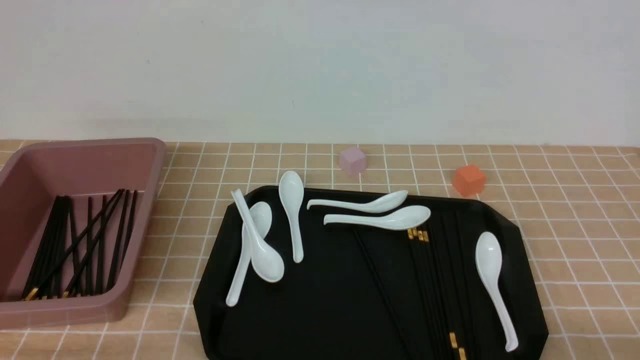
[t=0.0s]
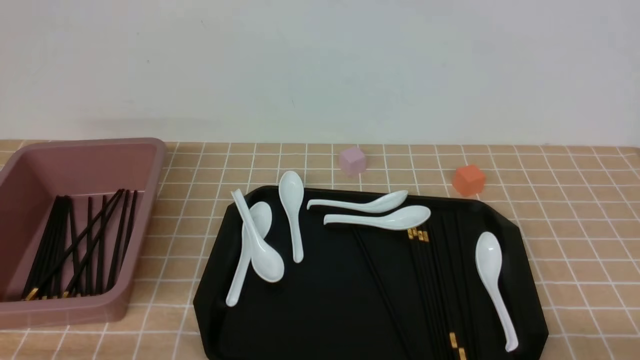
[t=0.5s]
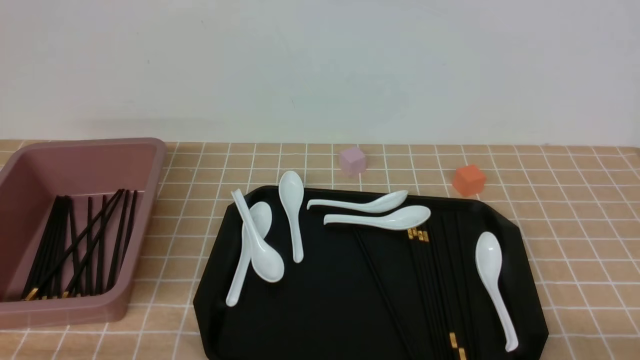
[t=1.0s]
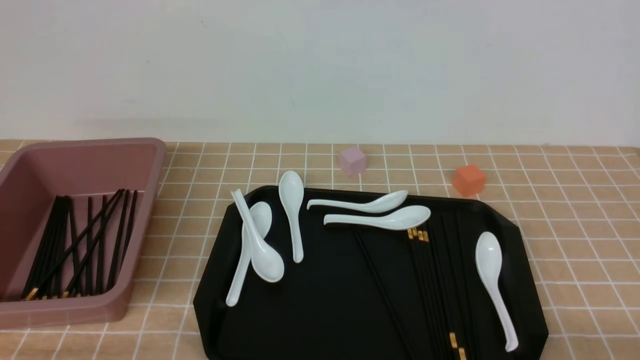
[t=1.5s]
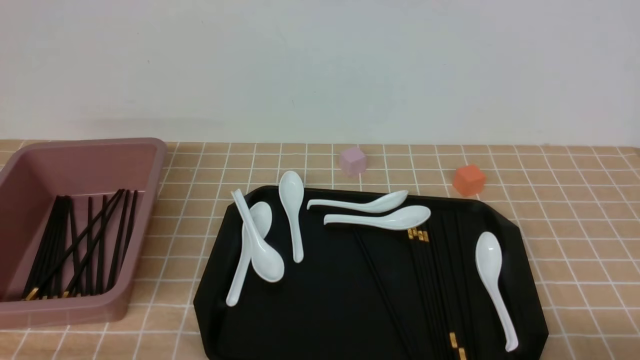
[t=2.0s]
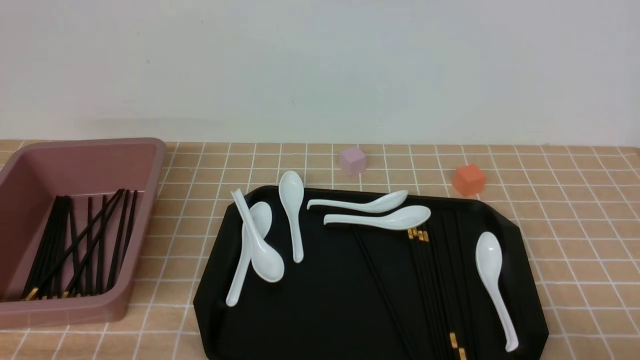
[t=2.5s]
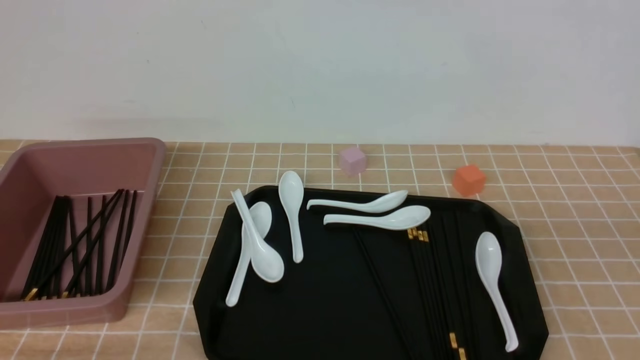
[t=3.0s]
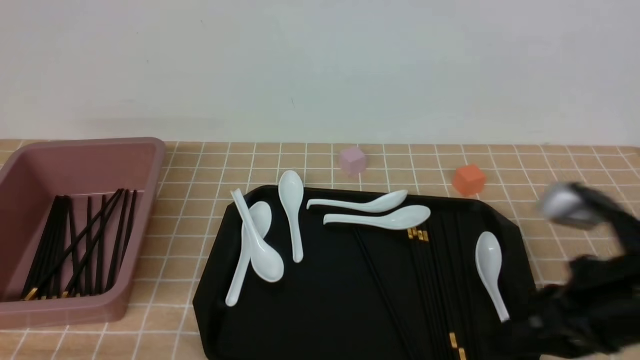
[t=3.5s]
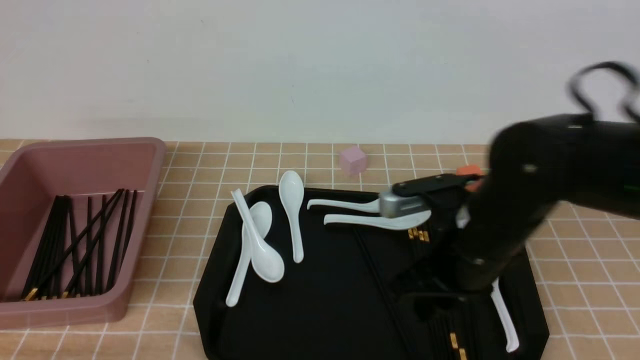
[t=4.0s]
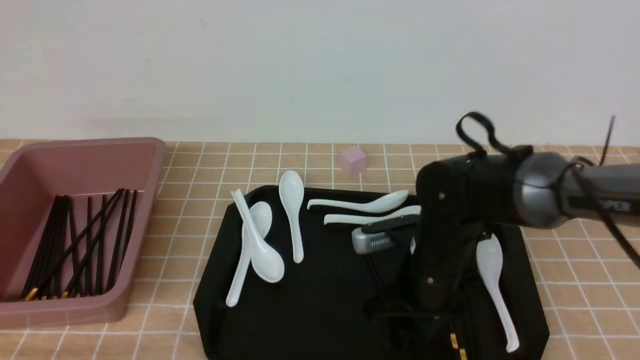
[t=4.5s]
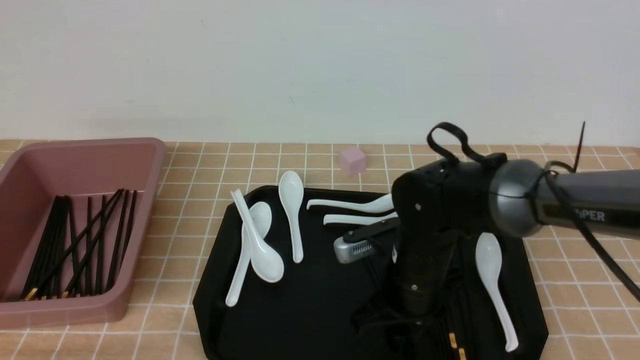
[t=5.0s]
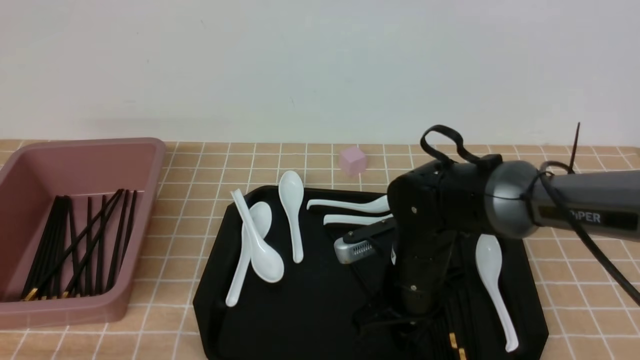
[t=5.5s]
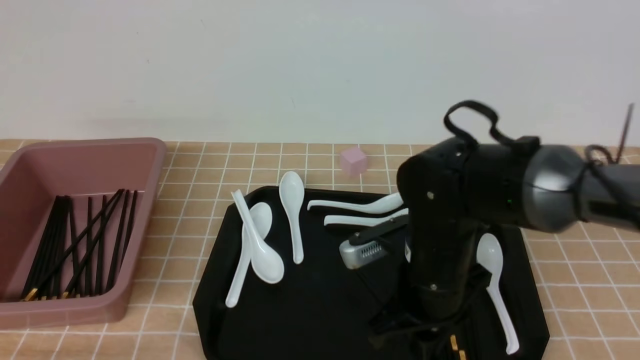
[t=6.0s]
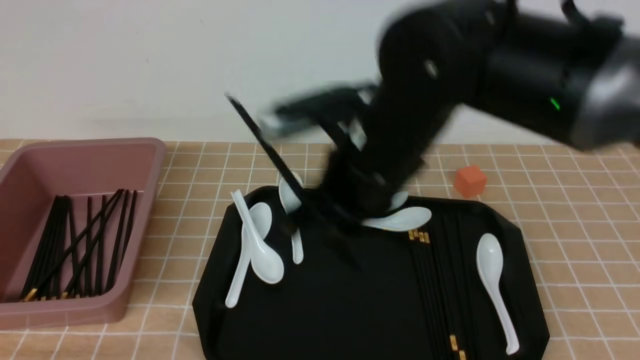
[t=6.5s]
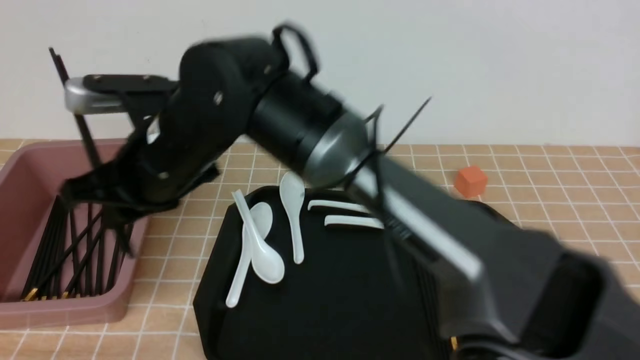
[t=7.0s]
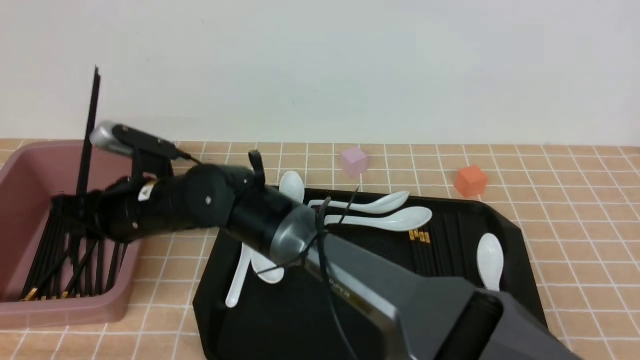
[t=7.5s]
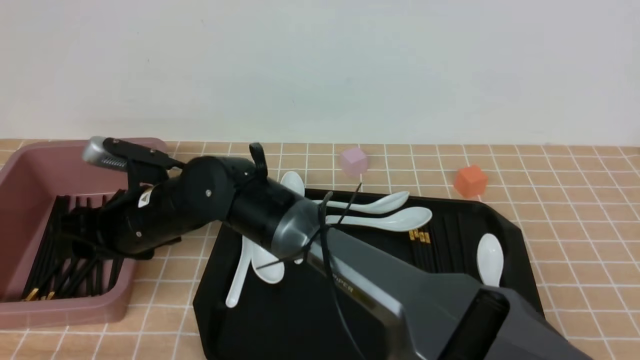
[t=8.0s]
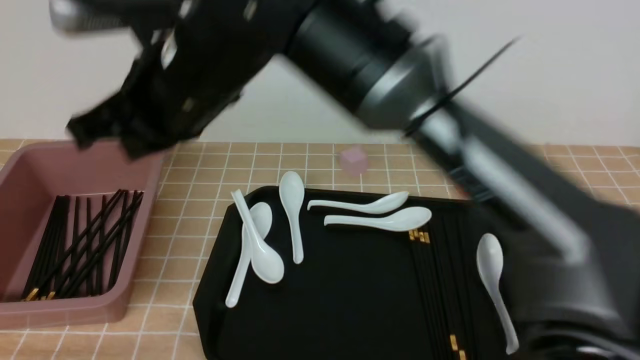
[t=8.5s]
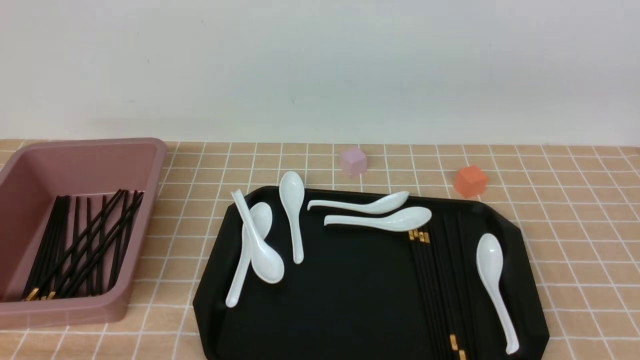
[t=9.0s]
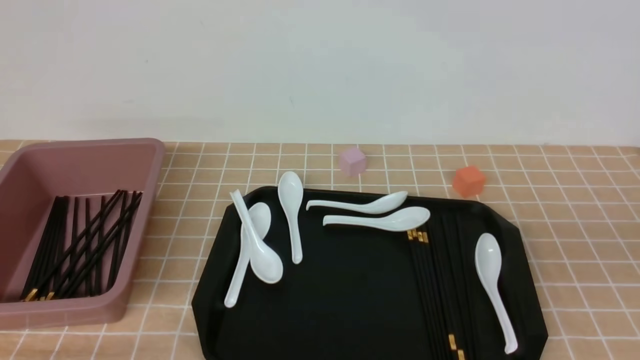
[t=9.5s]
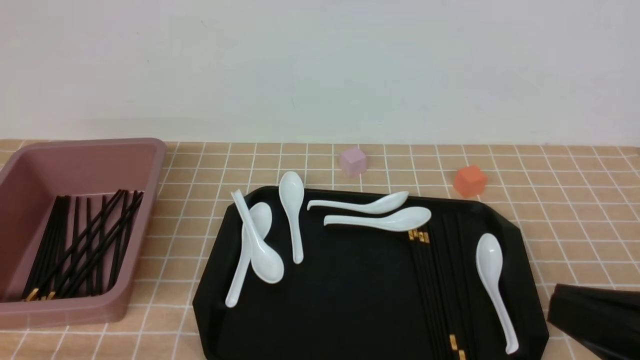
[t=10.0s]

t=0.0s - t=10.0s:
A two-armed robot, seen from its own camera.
Step, t=0.0s - t=6.0s: use the right arm to grab a pair of chopsticks.
Step, t=6.5s - t=8.0s: use the right arm to put the chopsticks into the lunch box.
t=2.0s - t=4.0s: The right gripper goes approximately 25 cm forward and to the left, and closes, then opens again.
t=4.0s - t=6.0s: The right gripper shifts about 5 cm downward, and opens, then closes once more.
t=6.0s - t=8.0s: The right gripper goes roughly 25 cm to the left, and opens.
t=8.0s - t=10.0s: The right gripper heads to the right and backward, covering roughly 50 cm, and closes its fingers.

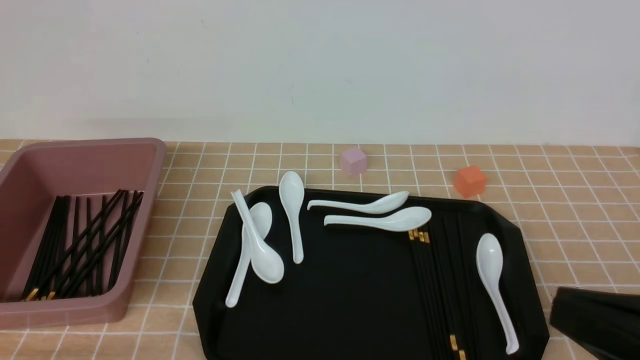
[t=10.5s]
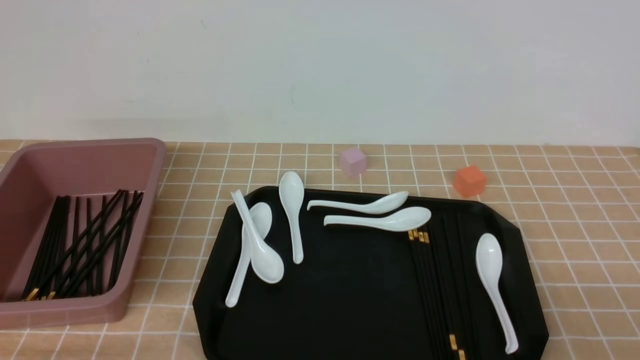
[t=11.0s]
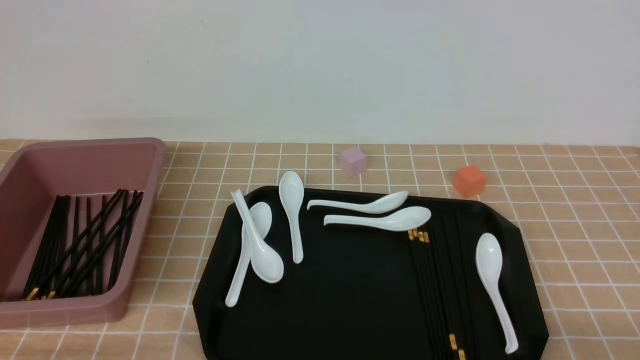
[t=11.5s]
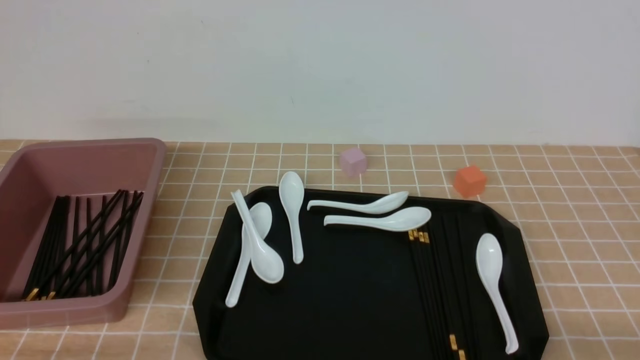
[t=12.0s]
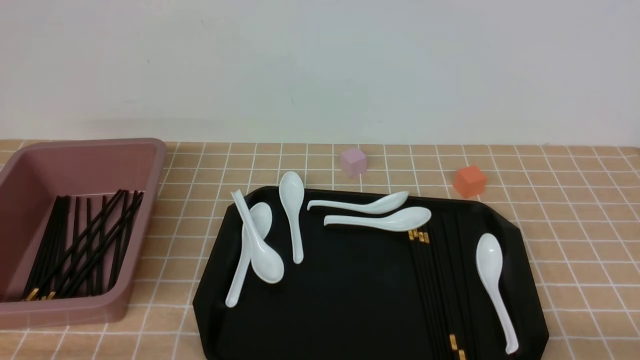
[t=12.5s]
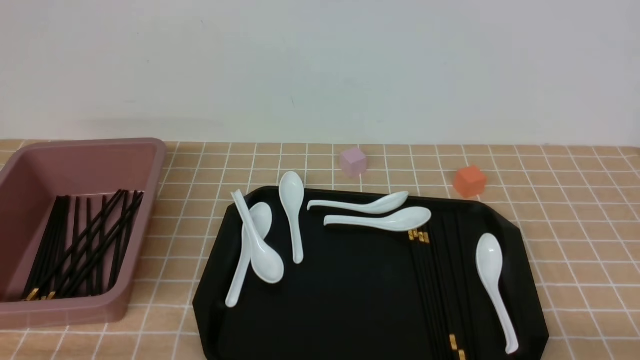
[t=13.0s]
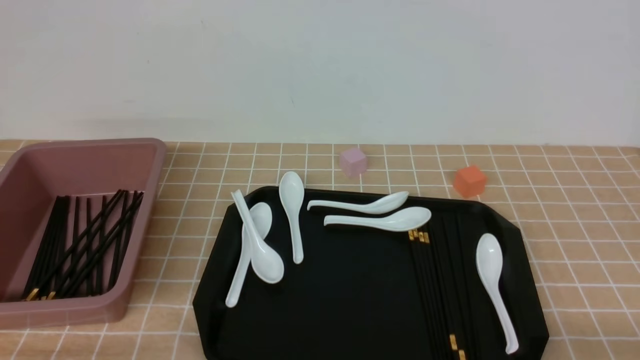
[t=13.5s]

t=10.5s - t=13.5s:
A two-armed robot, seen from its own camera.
t=10.5s - t=12.0s: The right gripper is displaced downward and to the right by approximately 15 cm.
t=12.0s - t=13.5s: The two grippers keep their place.

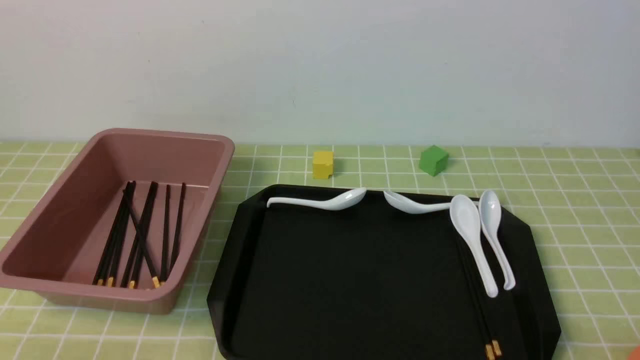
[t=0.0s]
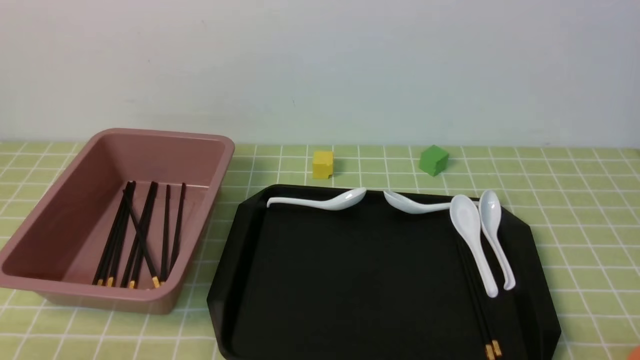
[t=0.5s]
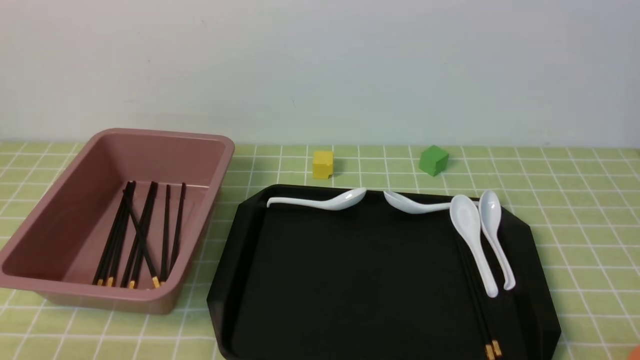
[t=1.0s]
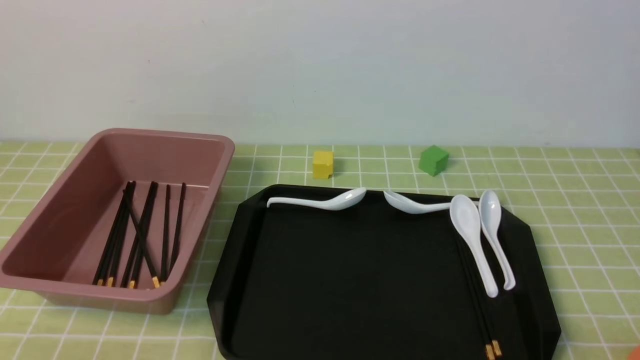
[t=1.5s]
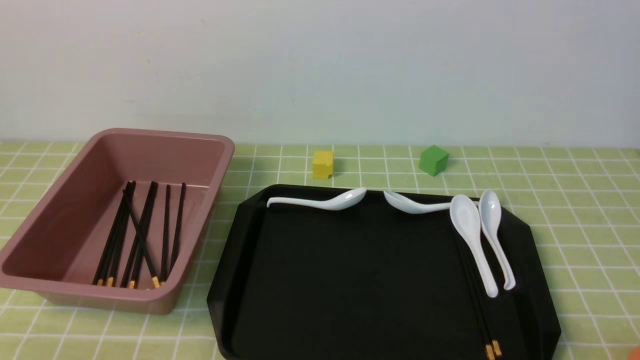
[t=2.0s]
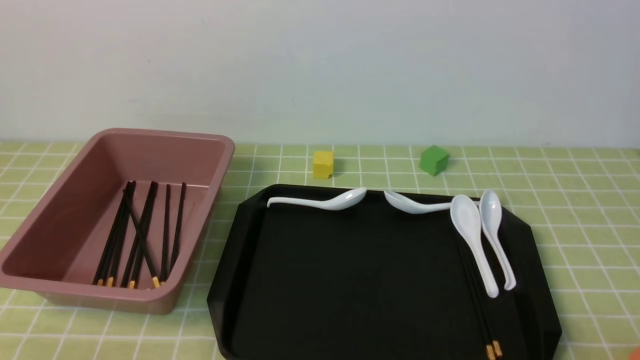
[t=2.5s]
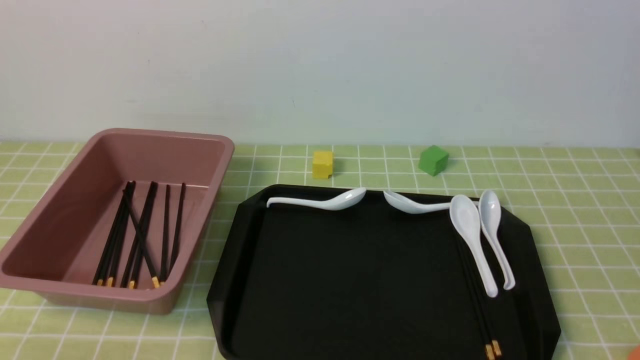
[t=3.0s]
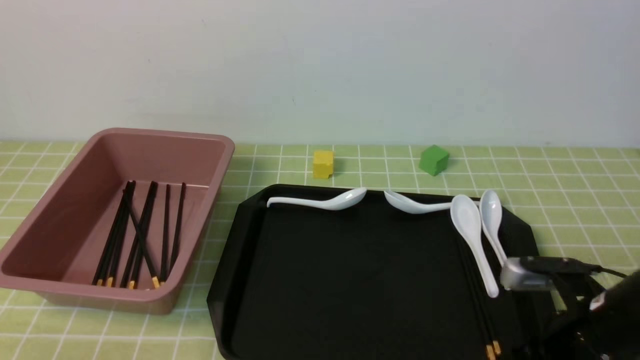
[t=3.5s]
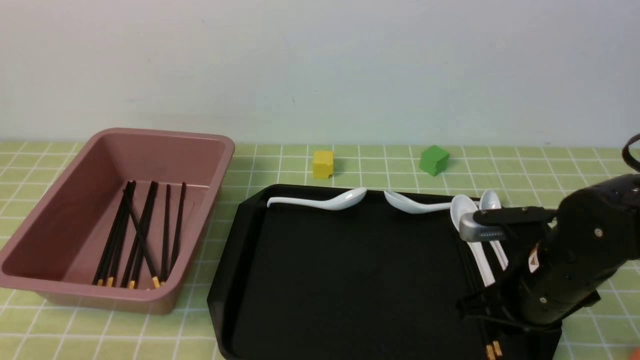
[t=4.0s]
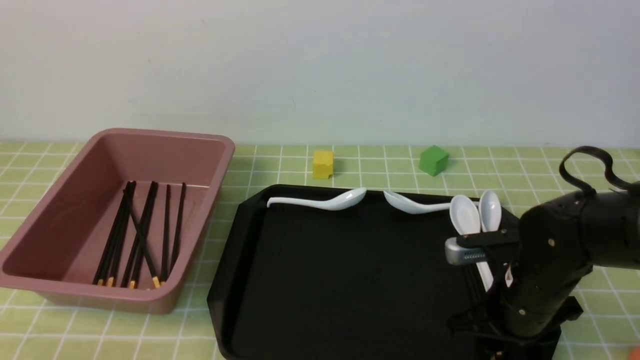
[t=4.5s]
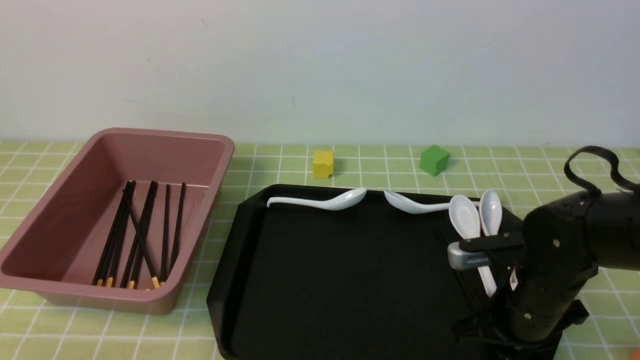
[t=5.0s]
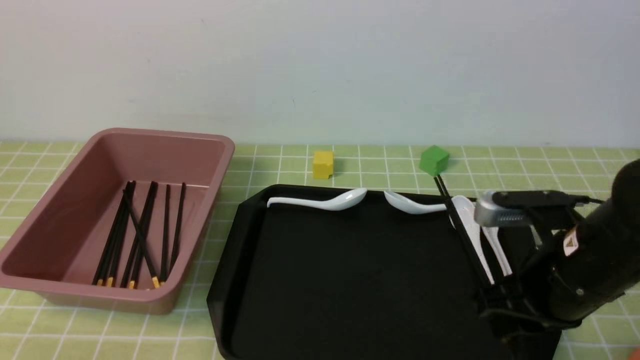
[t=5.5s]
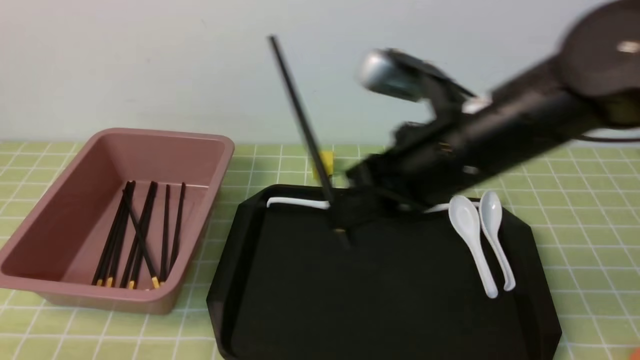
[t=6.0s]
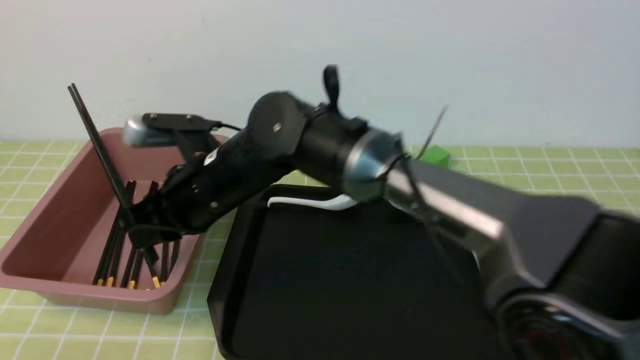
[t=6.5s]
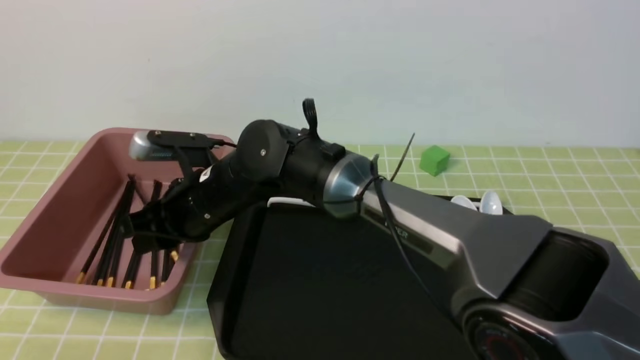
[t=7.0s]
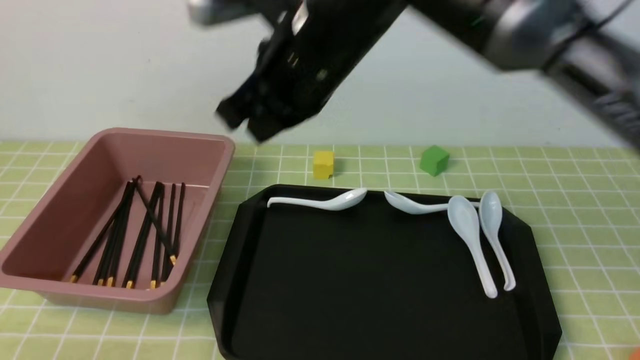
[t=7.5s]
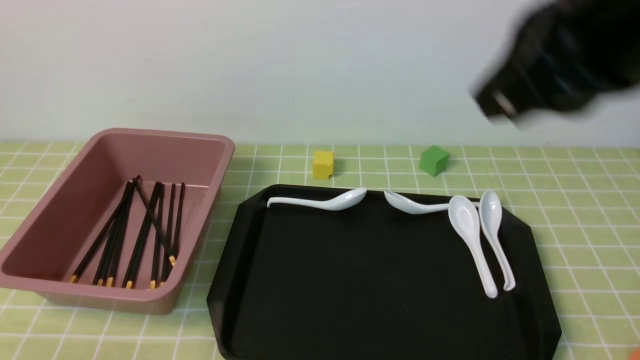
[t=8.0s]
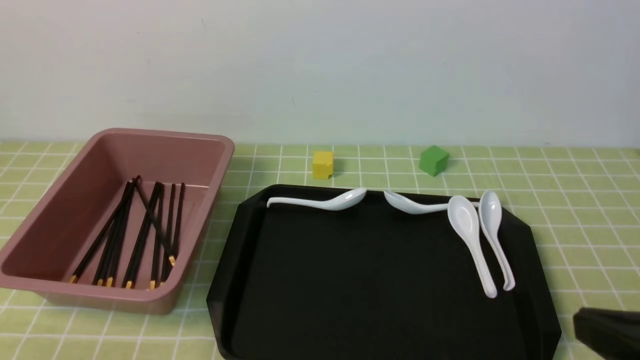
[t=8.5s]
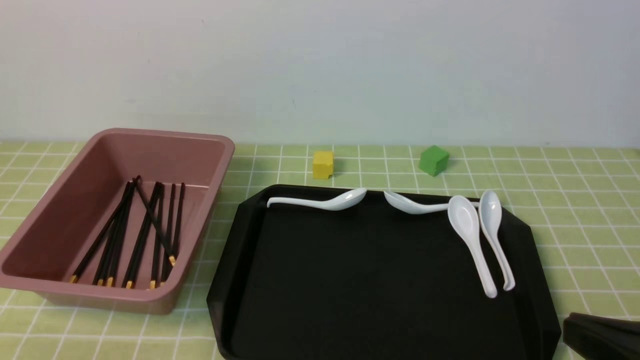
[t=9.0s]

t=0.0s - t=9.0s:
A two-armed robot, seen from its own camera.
Step, t=0.0s - t=5.0s: use the right arm to grab a pair of chopsticks.
Step, t=5.5s - t=7.0s: use the right arm to put the chopsticks into the lunch box.
t=2.0s - t=4.5s: The right gripper goes about 25 cm forward and to the left, and closes and opens again.
t=4.5s - t=7.0s: The right gripper travels to the left by about 30 cm.
t=7.0s - t=9.0s: The right gripper shifts roughly 40 cm to the right and backward, and closes up.
